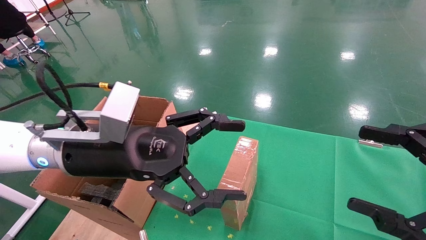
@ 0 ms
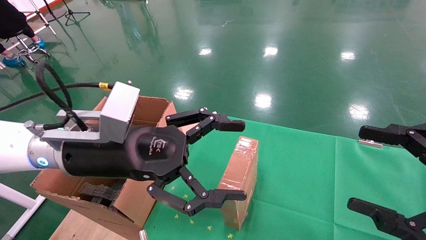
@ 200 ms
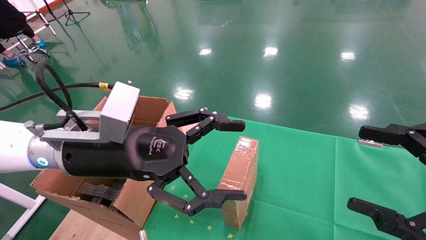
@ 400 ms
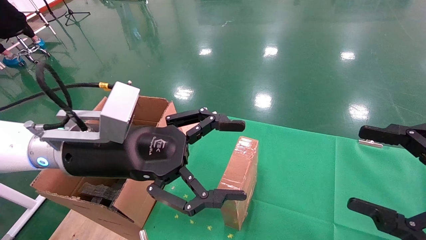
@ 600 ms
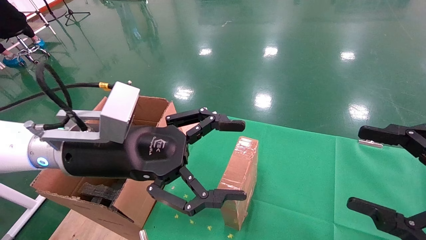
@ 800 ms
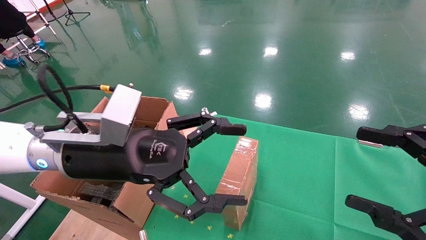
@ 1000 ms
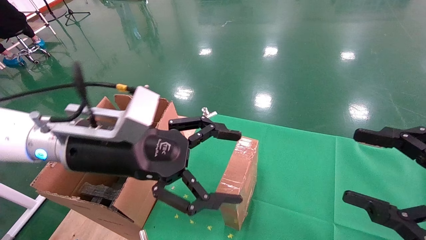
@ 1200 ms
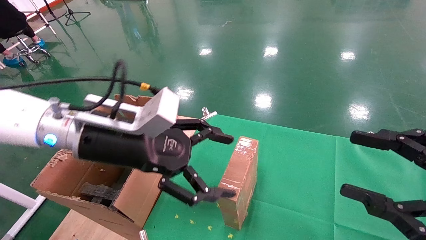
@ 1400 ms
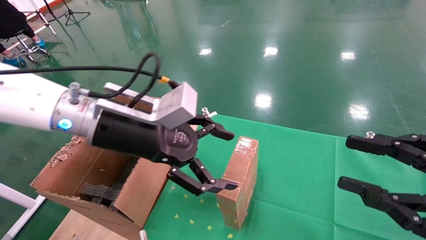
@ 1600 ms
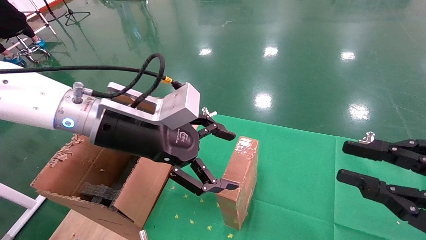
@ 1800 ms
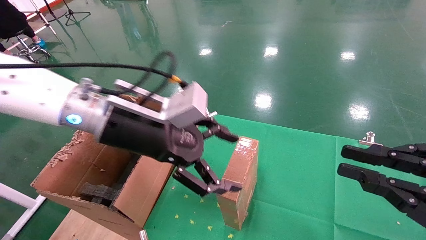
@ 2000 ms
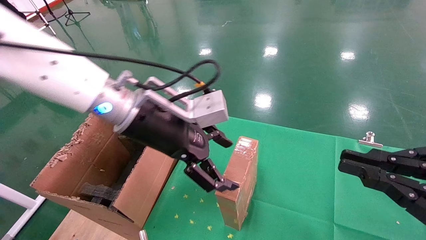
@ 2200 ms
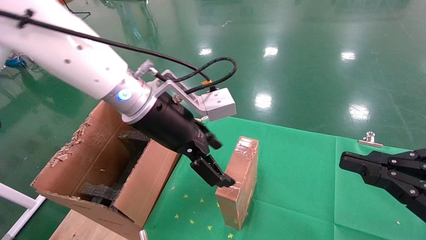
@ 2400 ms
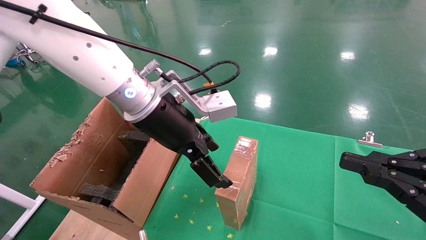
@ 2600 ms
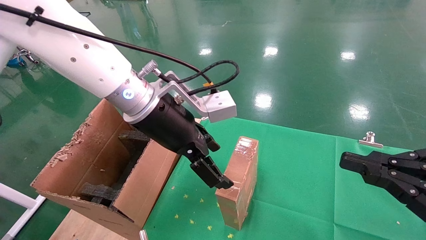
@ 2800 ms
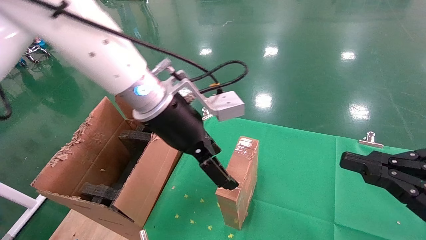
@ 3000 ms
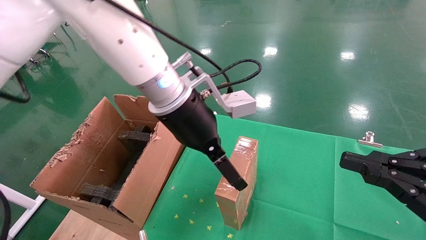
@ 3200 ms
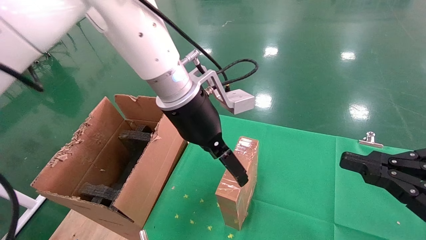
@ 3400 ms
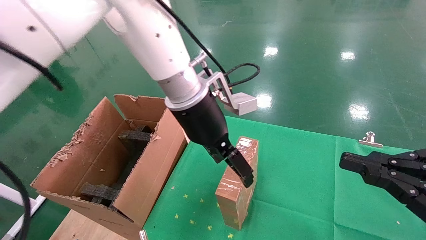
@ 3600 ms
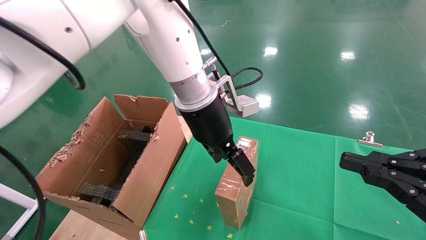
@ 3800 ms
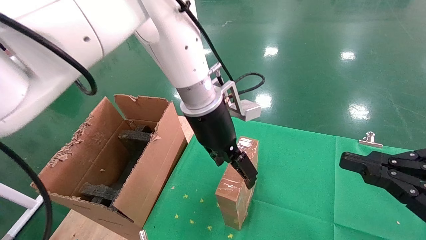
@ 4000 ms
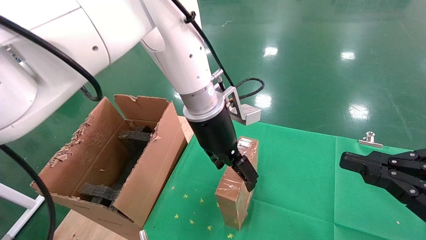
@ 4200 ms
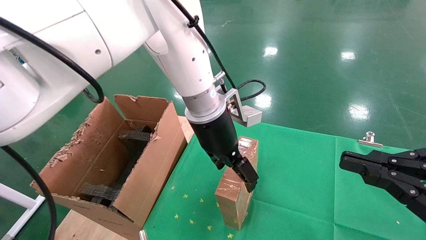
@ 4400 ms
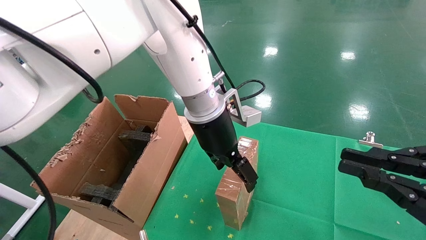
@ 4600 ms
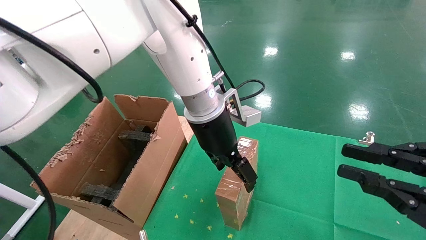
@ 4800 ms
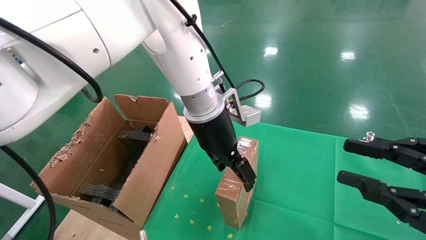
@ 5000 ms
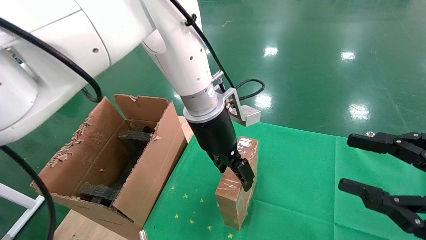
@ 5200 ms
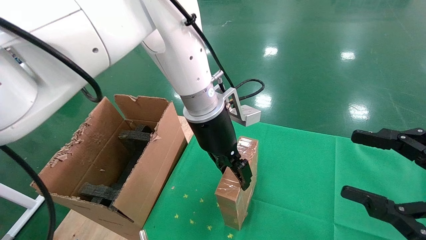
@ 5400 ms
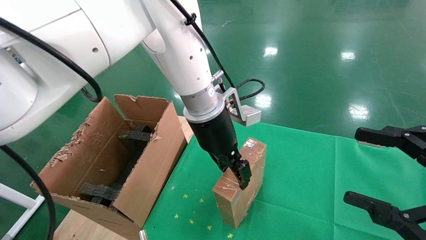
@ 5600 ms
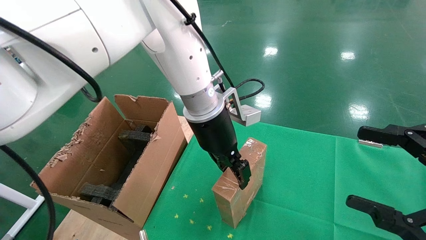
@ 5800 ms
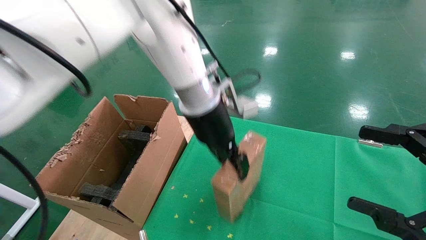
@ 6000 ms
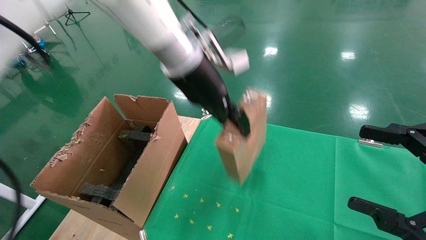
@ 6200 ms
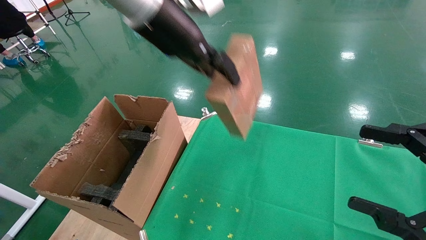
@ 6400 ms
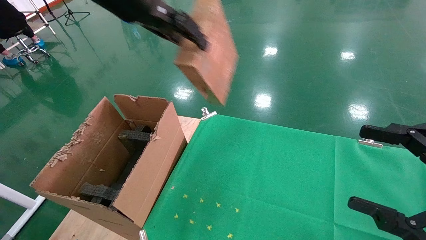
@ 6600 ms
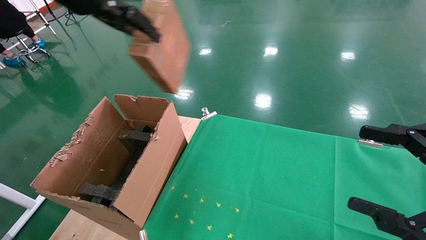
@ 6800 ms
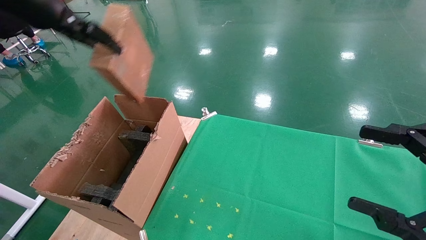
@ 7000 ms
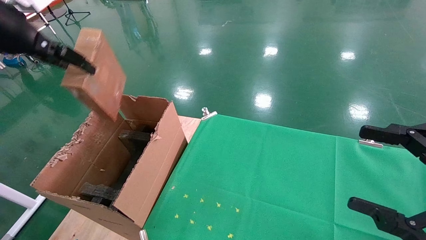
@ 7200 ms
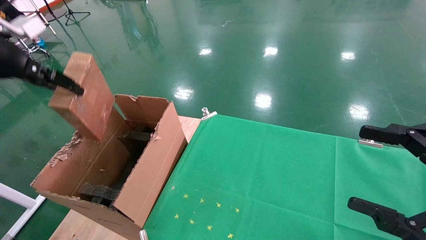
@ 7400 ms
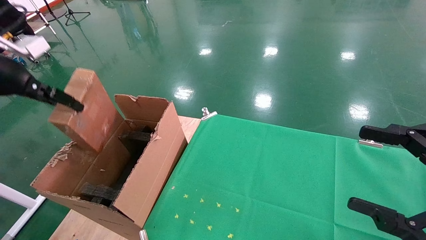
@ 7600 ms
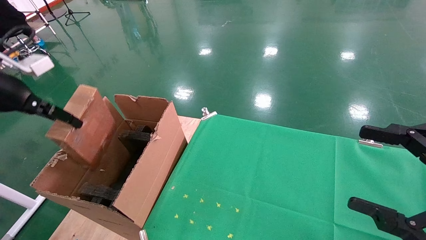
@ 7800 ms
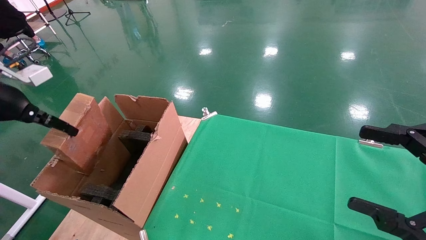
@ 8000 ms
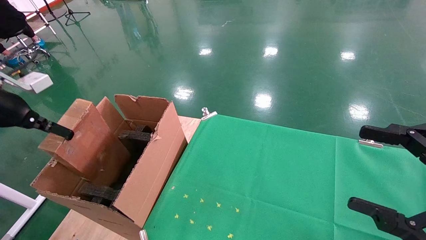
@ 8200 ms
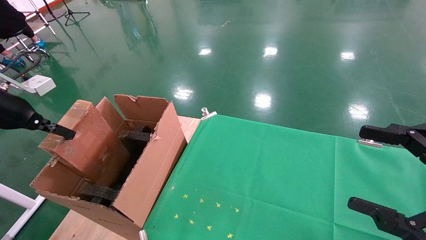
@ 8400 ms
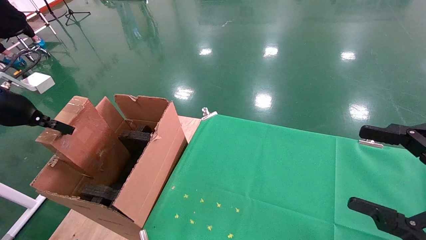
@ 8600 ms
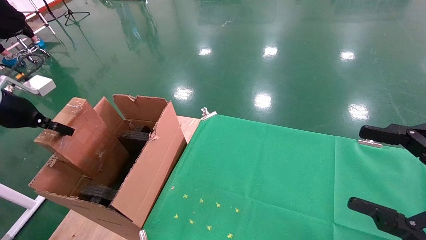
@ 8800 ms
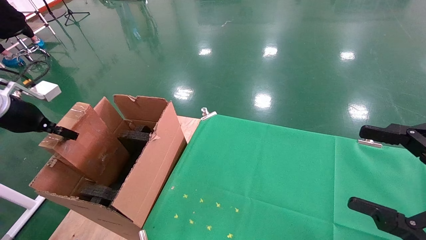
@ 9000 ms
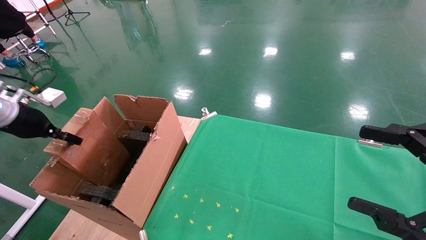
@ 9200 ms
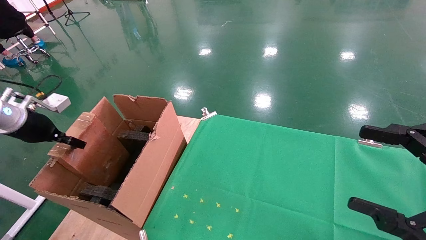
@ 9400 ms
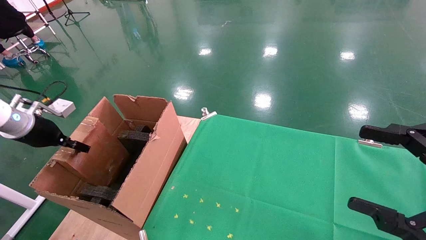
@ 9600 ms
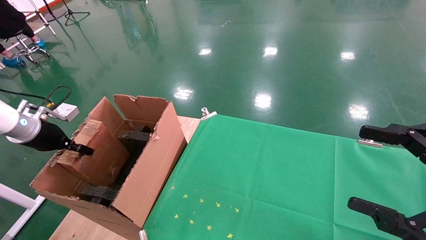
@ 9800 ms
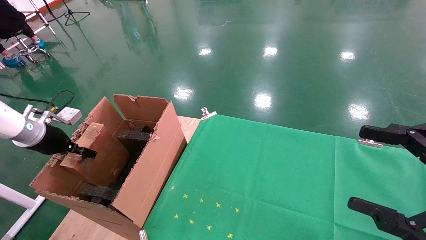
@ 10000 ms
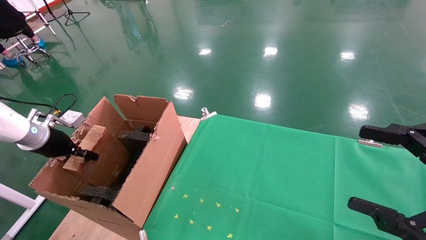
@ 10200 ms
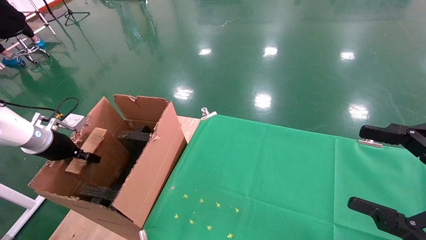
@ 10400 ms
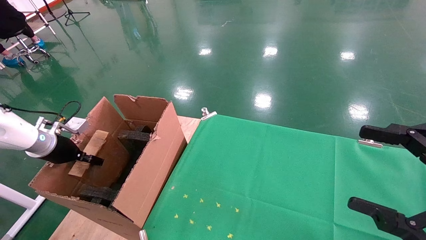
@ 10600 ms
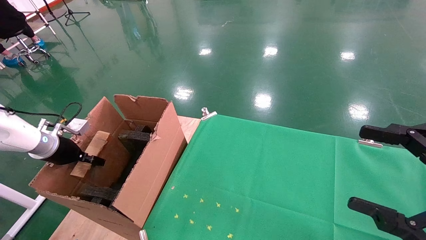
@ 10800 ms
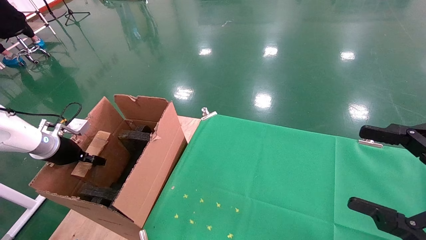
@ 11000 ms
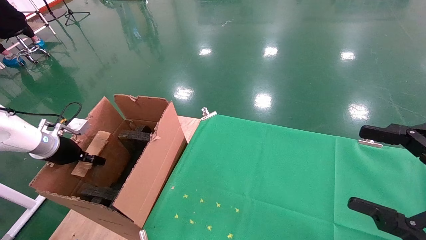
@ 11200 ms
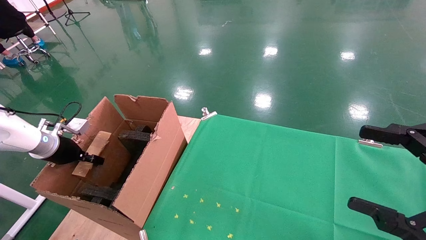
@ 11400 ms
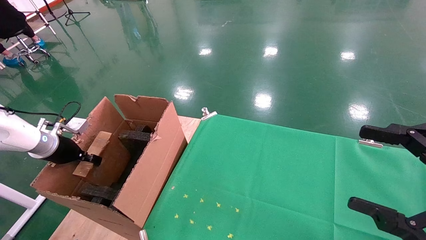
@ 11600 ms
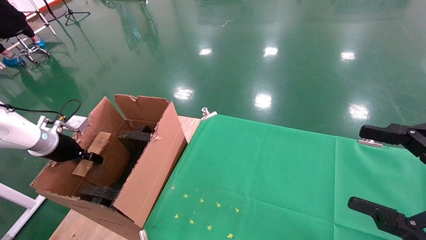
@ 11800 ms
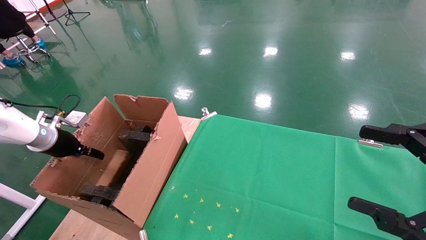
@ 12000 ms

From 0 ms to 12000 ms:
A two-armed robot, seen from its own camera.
Task of the whole recording: using a robotic arm to pick up a cardboard box and palace it the carton.
Step, from 1400 ms to 5800 ms: Pick up the mouse and the power cord paper box.
From 0 ms to 1600 ms: The right gripper closes up.
From 1600 ms to 3000 ms: The left gripper goes approximately 10 cm to the right and forward. Meanwhile the right gripper closes its fingers.
From 3000 ms to 4400 ms: The left gripper travels forward and to the right by about 10 cm.
From 4400 ms to 6000 ms: The left gripper closes, while the right gripper opens up.
From 6000 ms to 7600 ms: The left gripper goes roughly 40 cm to the left.
From 7600 ms to 9000 ms: The left gripper is displaced downward and to the left by some 10 cm.
From 9000 ms to 10400 ms: The left gripper moves downward and forward, some 10 cm.
From 10400 ms to 12000 ms: The left gripper opens.

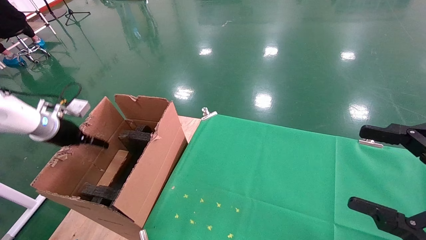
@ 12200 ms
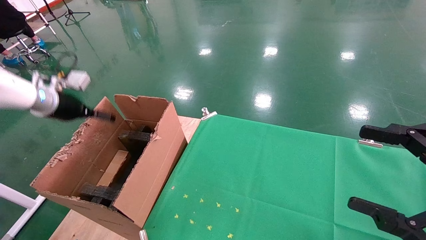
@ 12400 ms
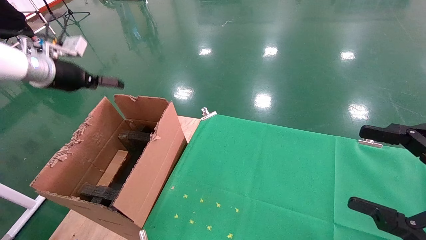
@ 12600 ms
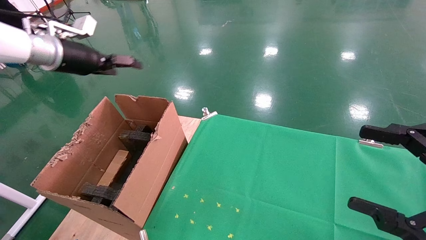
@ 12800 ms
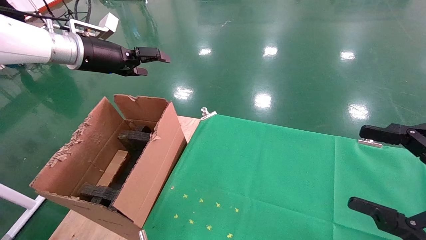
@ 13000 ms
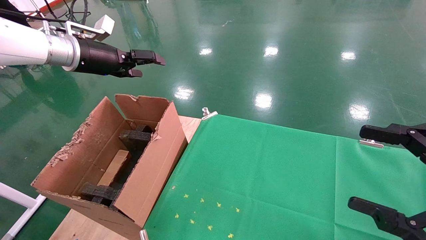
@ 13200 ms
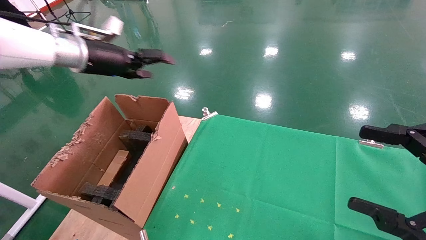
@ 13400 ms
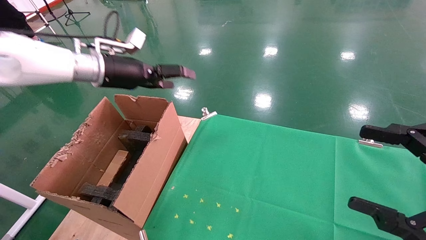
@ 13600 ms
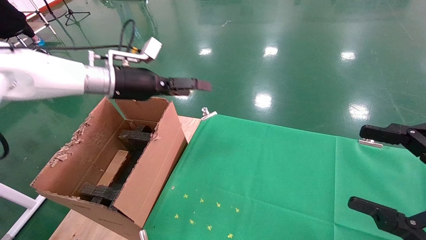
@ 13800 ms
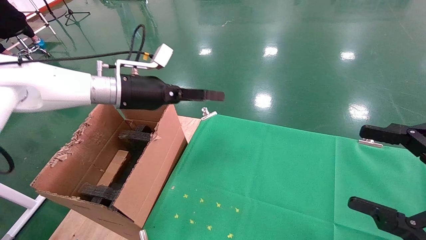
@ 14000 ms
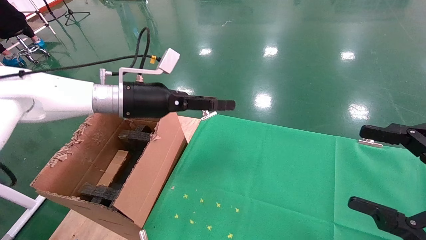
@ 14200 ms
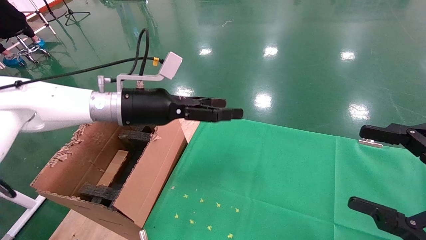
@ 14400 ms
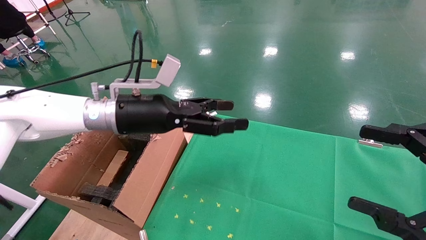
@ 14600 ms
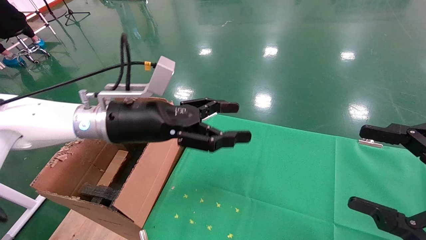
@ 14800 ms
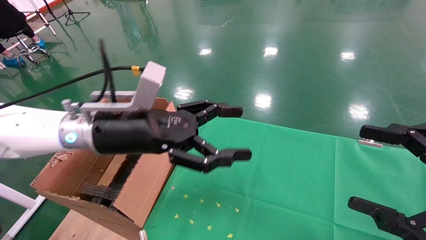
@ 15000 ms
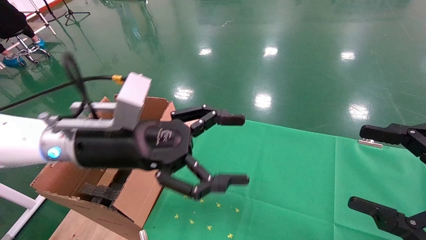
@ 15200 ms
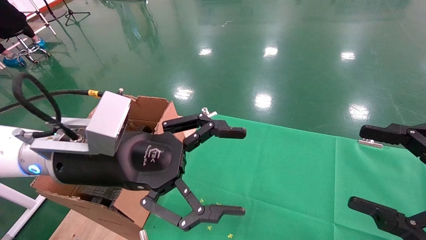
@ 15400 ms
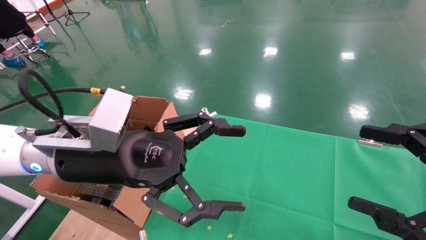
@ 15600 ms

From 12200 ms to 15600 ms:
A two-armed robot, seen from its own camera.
Task of the whole recording: using a robotic arm to pick up a cardboard box and palace it the carton.
From 12200 ms to 13800 ms: The left gripper travels to the right and upward by about 20 cm.
From 13800 ms to 15600 ms: The left gripper travels backward and to the right by roughly 20 cm.
